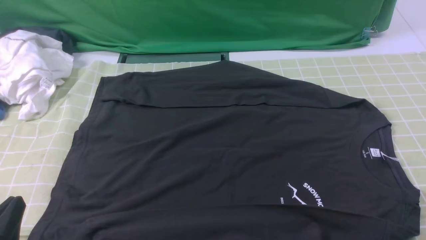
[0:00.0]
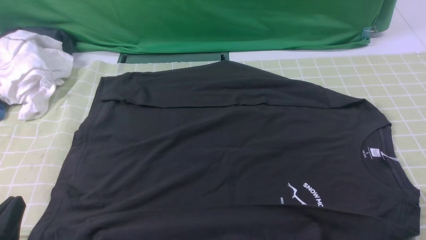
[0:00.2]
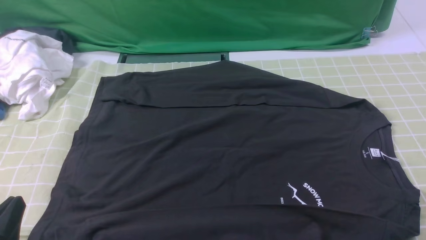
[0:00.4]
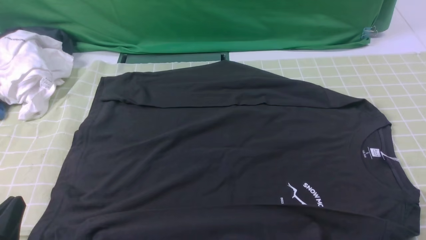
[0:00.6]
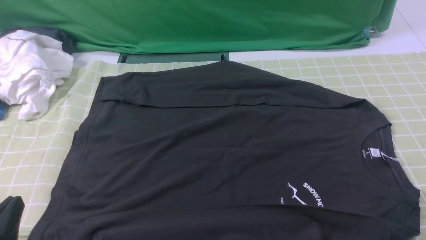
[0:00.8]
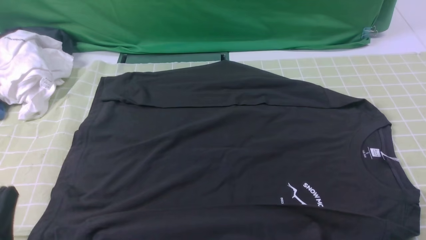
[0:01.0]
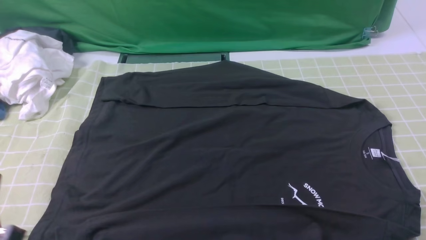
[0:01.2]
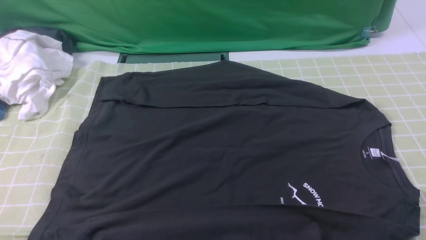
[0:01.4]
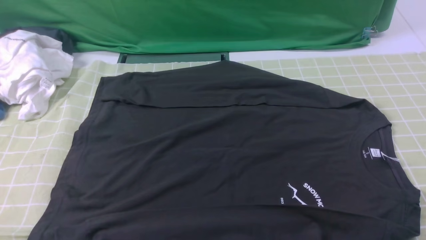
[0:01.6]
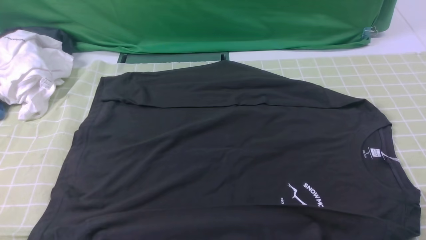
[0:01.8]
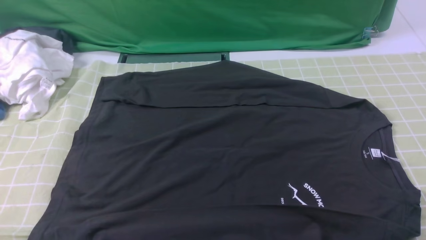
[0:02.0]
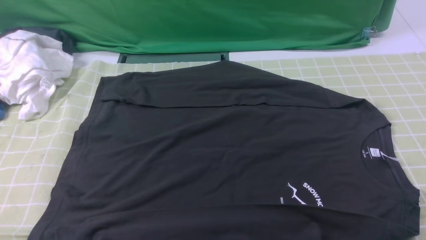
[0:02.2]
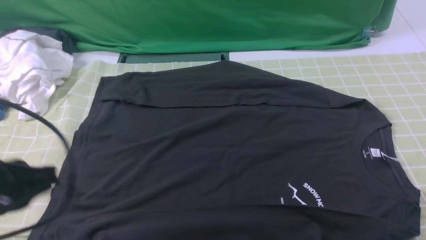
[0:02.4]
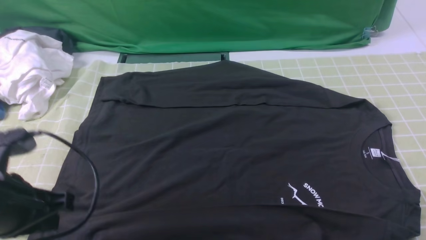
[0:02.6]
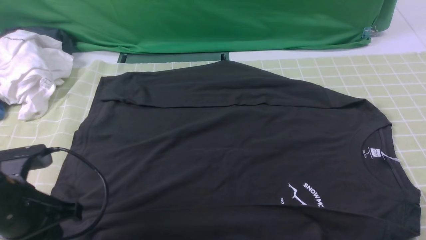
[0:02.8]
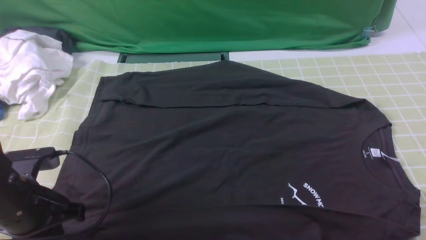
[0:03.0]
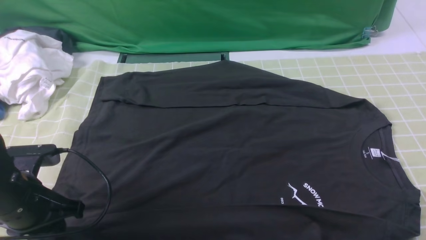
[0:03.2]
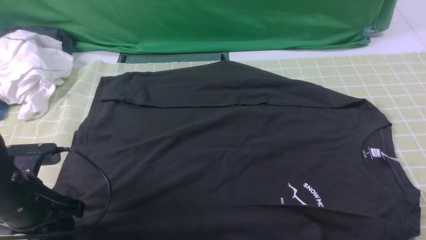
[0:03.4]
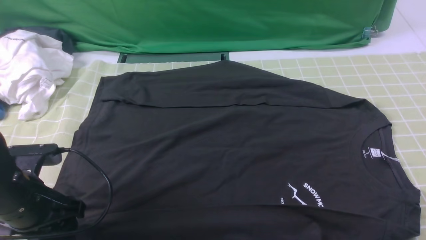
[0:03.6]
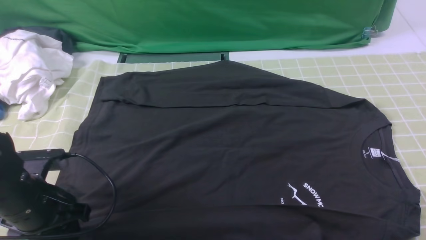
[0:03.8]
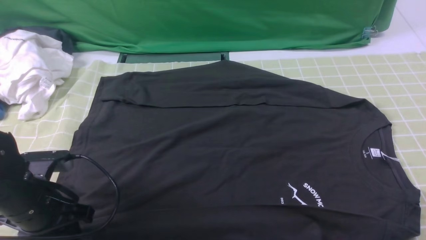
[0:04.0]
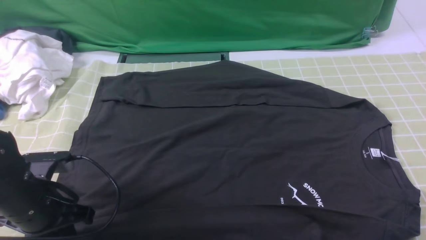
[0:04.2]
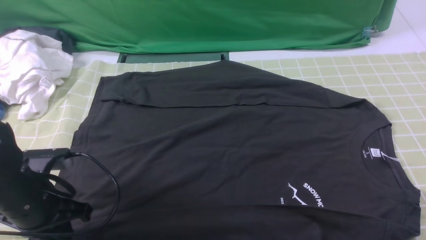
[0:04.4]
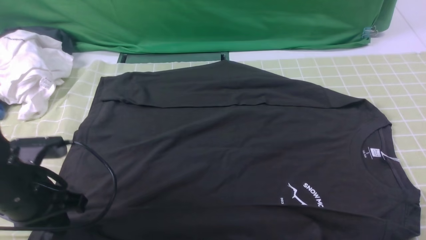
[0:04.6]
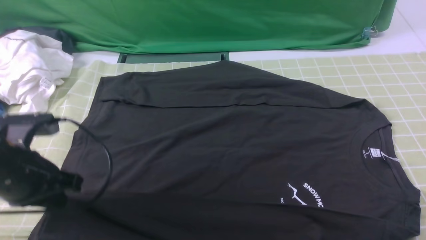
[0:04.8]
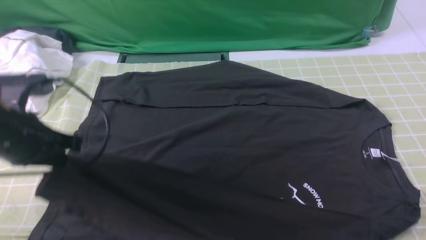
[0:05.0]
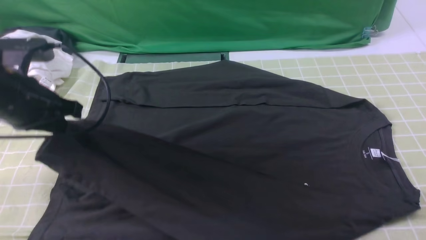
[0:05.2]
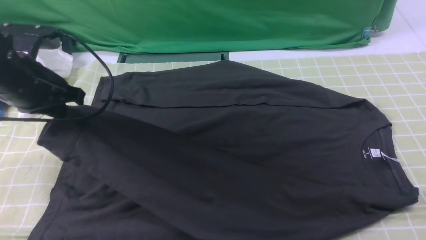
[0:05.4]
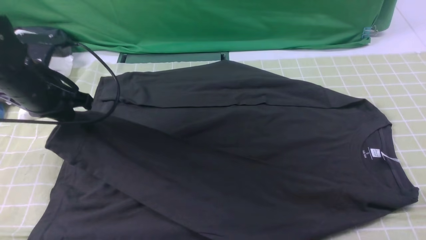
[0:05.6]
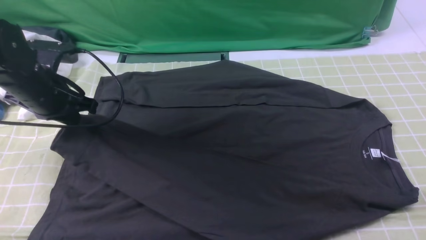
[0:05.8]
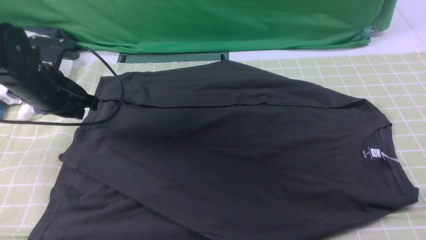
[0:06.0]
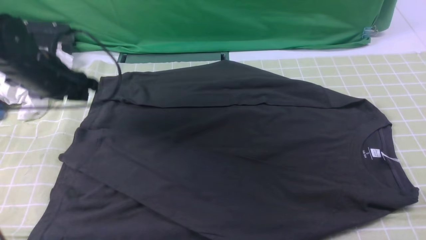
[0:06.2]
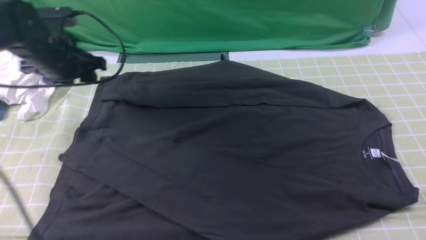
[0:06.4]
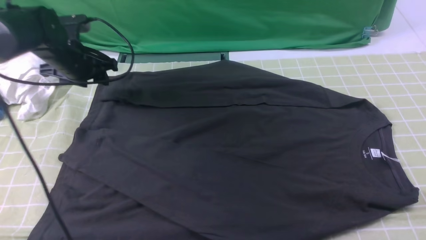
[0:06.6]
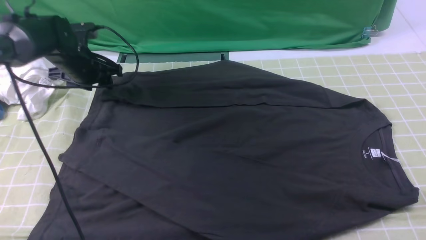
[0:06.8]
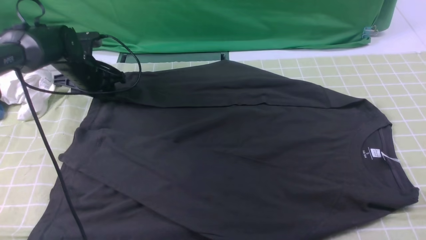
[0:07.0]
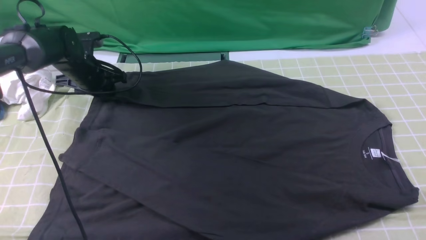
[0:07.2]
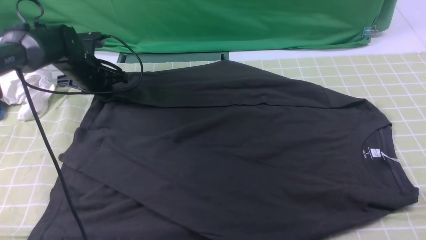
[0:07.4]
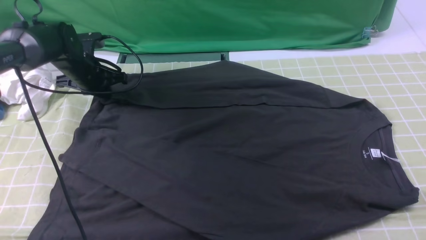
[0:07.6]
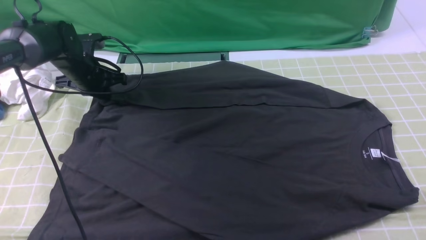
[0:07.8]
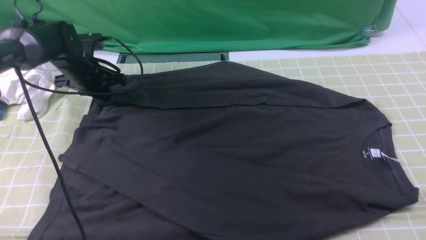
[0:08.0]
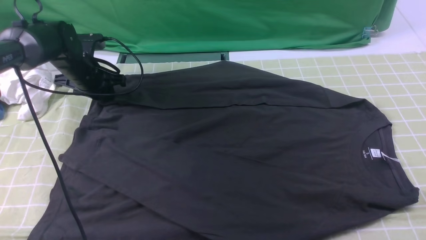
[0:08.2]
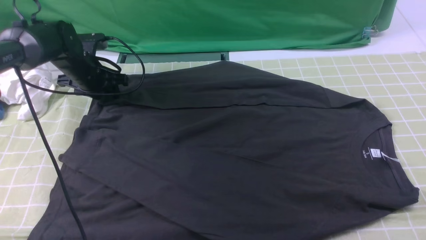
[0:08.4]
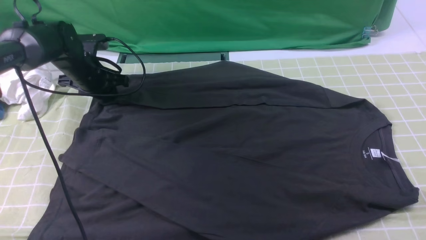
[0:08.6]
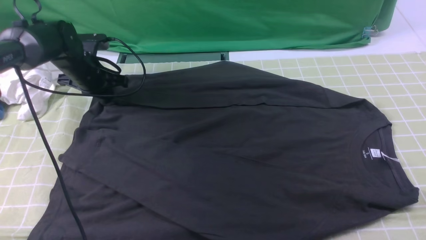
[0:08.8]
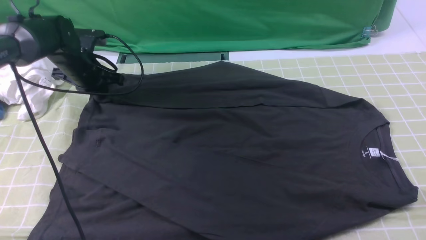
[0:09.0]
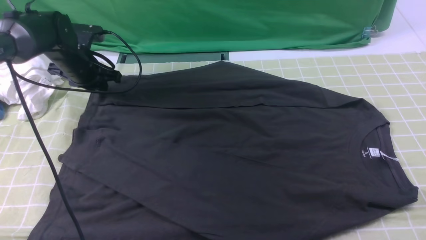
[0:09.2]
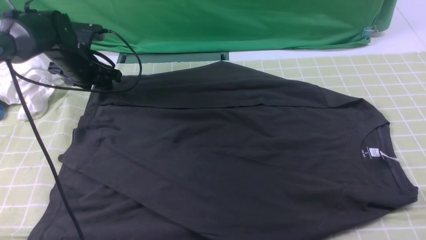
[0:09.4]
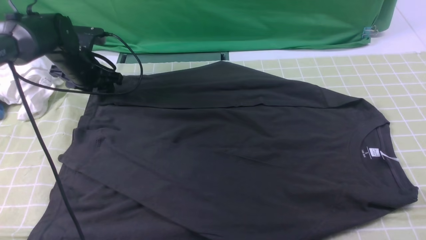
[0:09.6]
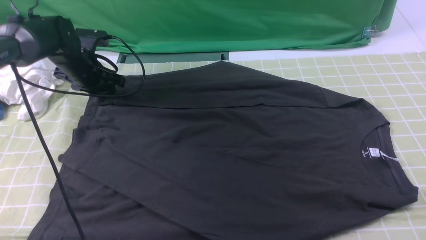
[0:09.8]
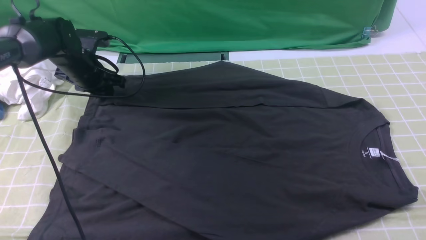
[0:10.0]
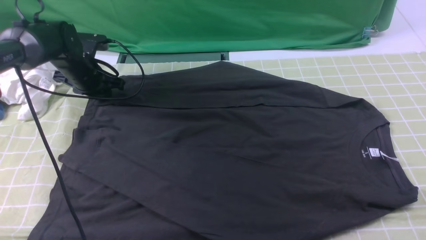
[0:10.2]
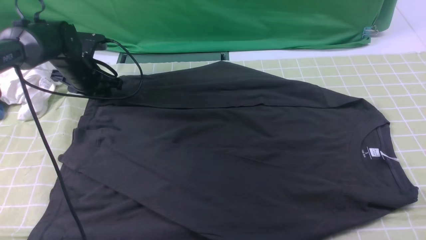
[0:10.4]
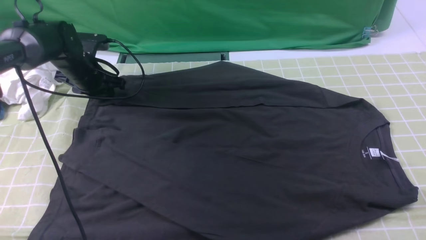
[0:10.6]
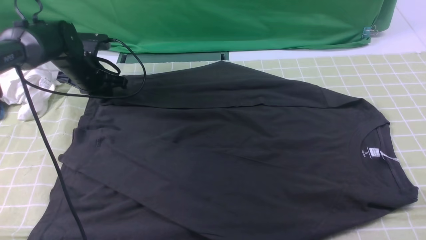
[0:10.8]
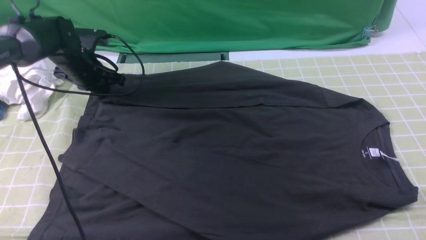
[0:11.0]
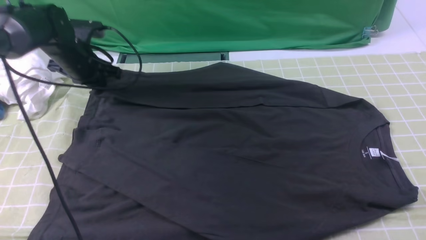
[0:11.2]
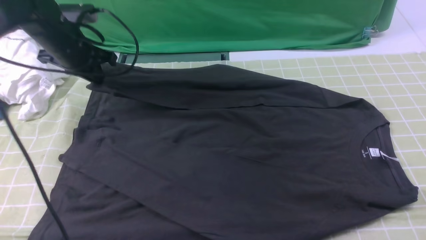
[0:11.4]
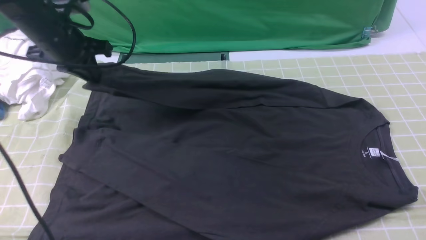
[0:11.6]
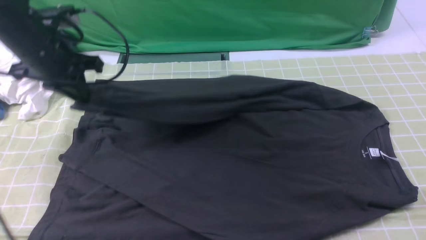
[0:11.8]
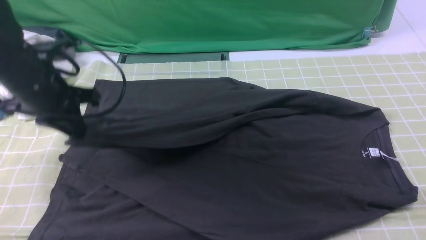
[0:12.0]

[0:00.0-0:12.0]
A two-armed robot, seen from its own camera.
Step, 0:00.0 to 0:04.2: use the left arm to clamp the cuff closest to it.
Step, 0:04.4 to 0:06.0: use the left arm to drag and place the cuff at the centered position on the left edge of the fabric.
Step, 0:06.2 to 0:10.8: use the left arm to clamp the cuff farthest from it.
0:00.0 to 0:01.6: The left gripper heads upward, covering about 5 cm.
0:01.6 to 0:03.0: The left gripper is displaced forward and downward by roughly 15 cm.
0:03.0 to 0:04.4: The left gripper opens, then closes again.
0:04.4 to 0:06.0: The left gripper heads forward, covering approximately 15 cm, and opens.
0:06.0 to 0:07.6: The left gripper shifts about 15 cm forward and downward, and closes up.
0:07.6 to 0:09.0: The left gripper opens, then closes again.
0:09.0 to 0:10.4: The left gripper opens up.
0:10.4 to 0:12.0: The left gripper goes roughly 20 cm backward and upward, and closes up.

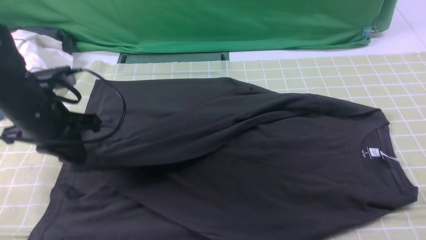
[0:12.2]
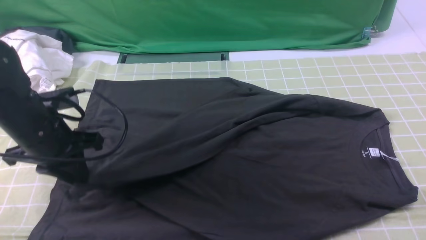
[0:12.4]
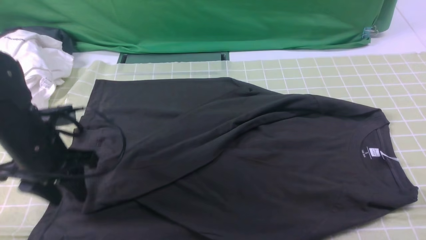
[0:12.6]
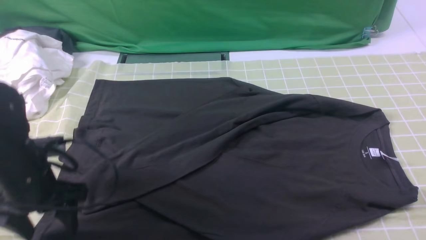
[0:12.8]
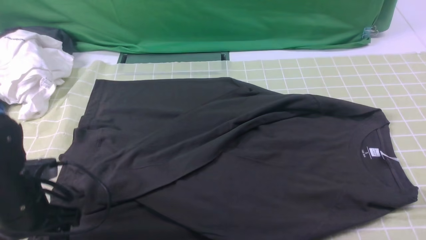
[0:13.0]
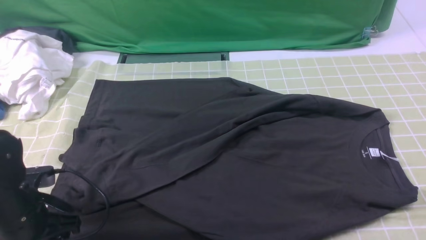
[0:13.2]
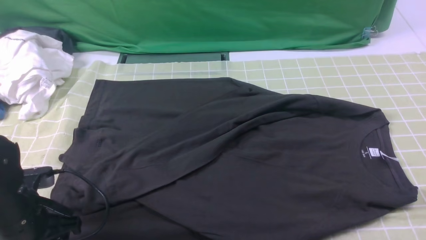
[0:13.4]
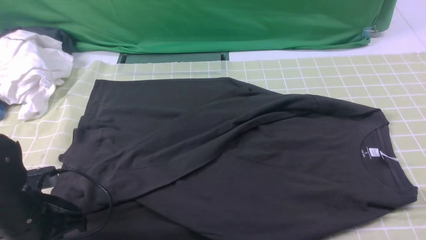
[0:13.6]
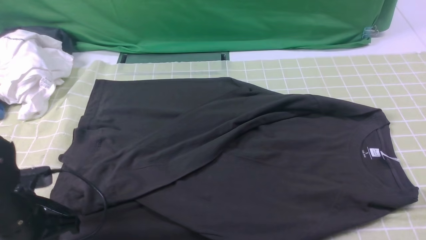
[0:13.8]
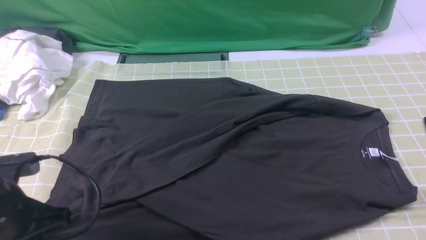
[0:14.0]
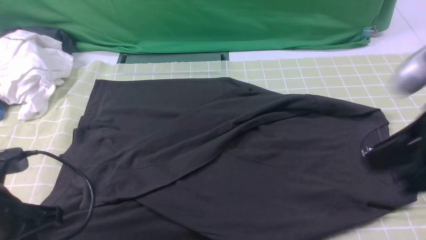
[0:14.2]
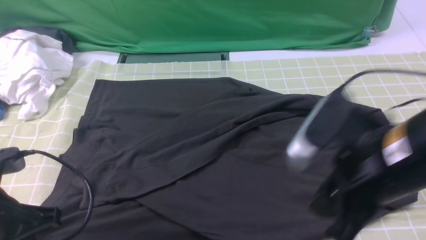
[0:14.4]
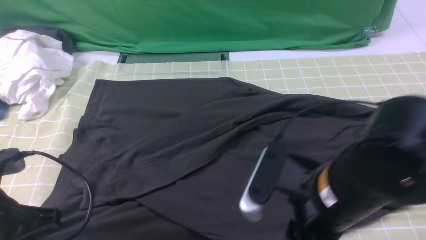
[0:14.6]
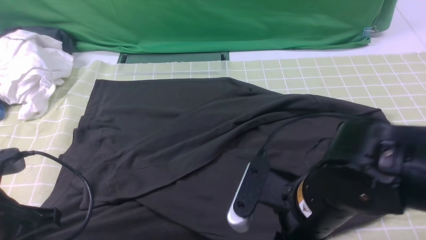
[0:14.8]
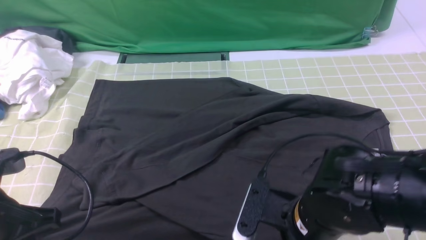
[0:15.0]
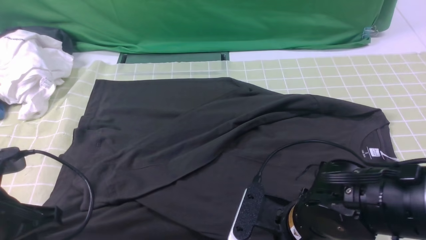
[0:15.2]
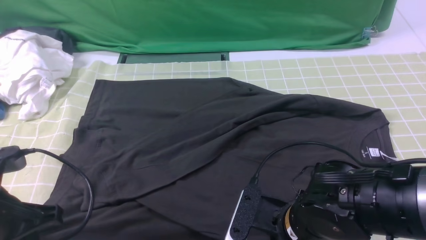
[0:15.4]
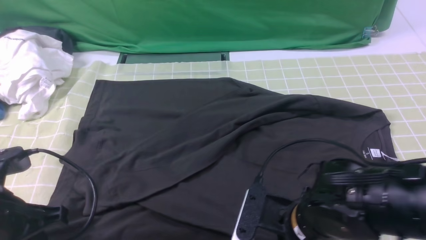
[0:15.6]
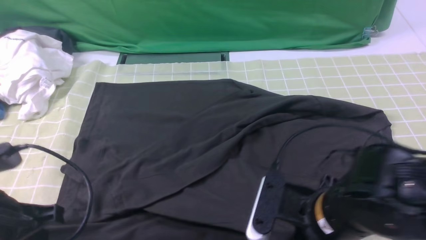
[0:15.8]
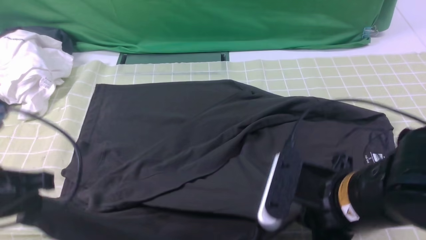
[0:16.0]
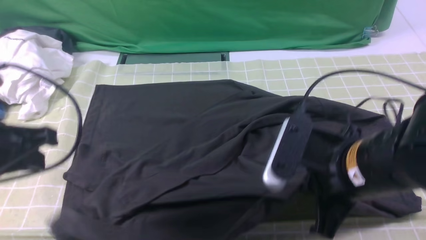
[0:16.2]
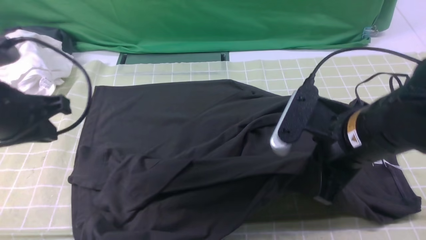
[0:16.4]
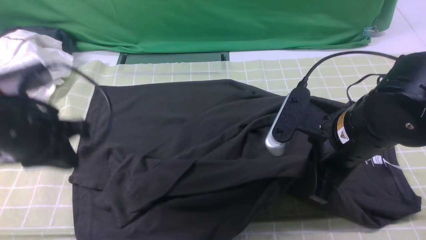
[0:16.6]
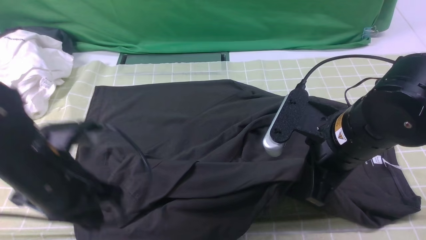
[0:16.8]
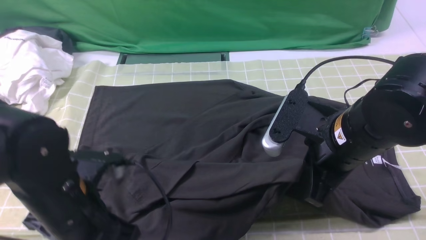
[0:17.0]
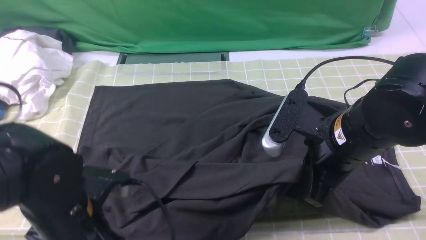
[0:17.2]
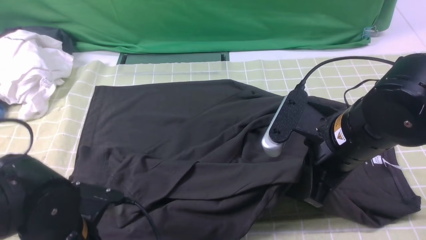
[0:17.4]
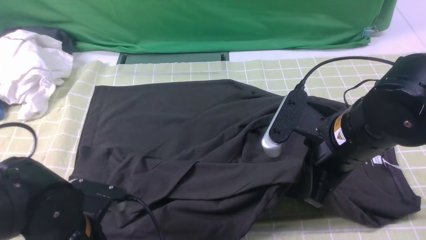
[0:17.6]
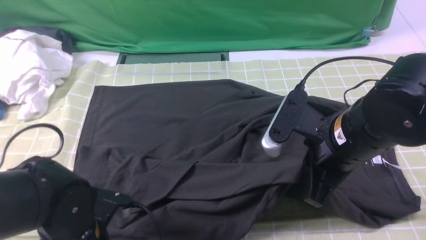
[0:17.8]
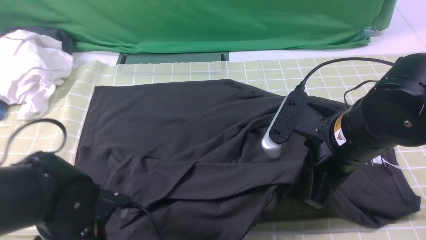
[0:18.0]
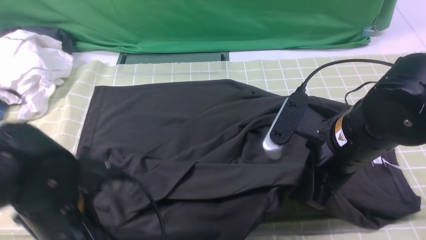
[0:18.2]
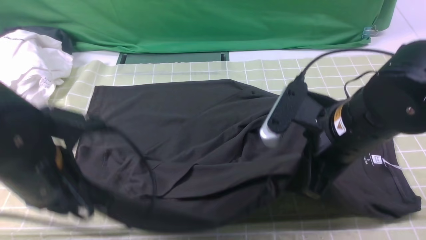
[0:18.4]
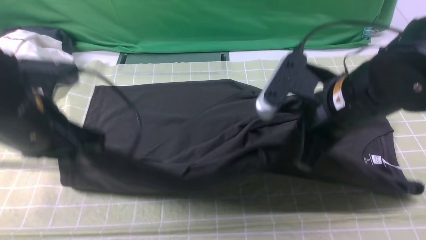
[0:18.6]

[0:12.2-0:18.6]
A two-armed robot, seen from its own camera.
Step, 0:12.6 to 0:15.4: use both arms simultaneously to clamp the lower edge of the clothing fabric.
0:12.2 to 0:13.8: The left gripper moves backward and downward, some 15 cm, and opens and closes again.
0:13.8 to 0:15.4: The right gripper shifts some 25 cm downward and to the left, and opens, then closes once more; the left gripper is displaced upward by about 5 cm.
0:15.4 to 0:17.0: The right gripper shifts approximately 10 cm upward and forward, and closes. Meanwhile the left gripper is displaced to the right by some 10 cm.
0:17.0 to 0:18.6: The left gripper travels upward and forward by roughly 10 cm, and opens, then closes again.
